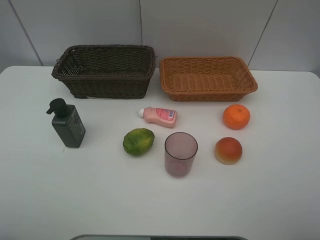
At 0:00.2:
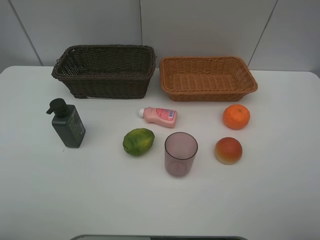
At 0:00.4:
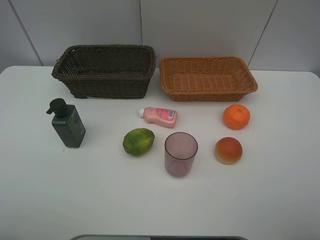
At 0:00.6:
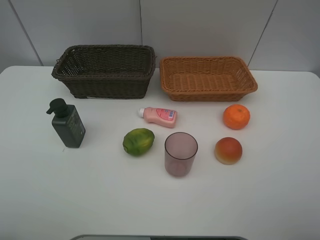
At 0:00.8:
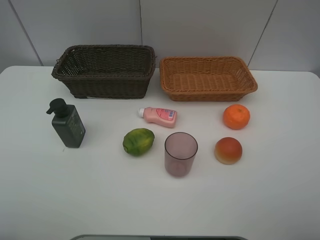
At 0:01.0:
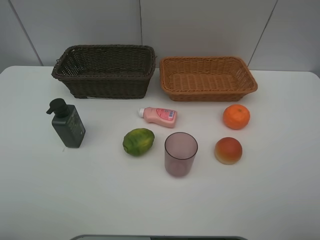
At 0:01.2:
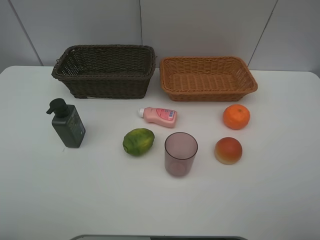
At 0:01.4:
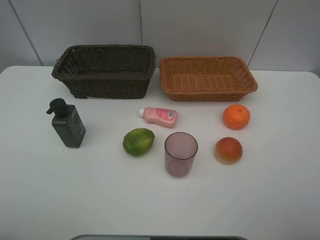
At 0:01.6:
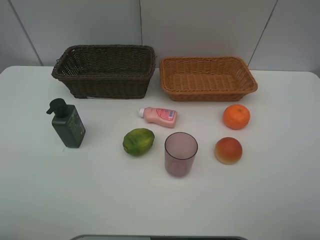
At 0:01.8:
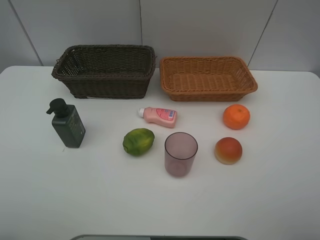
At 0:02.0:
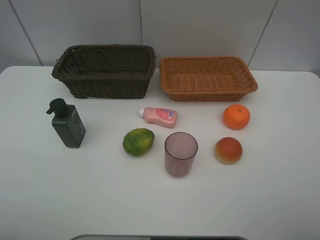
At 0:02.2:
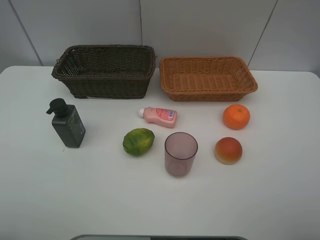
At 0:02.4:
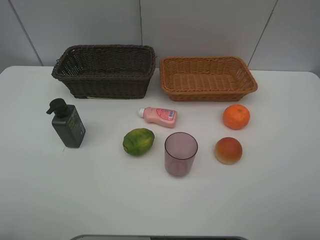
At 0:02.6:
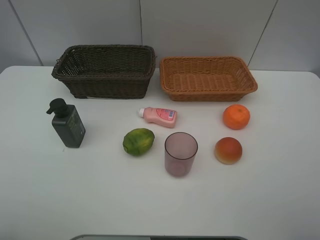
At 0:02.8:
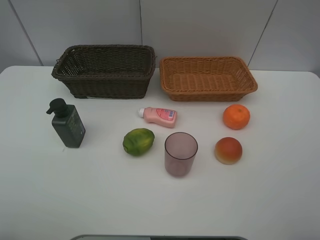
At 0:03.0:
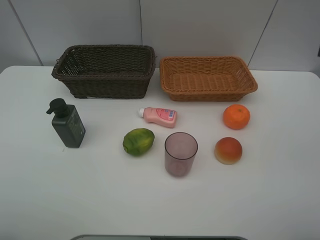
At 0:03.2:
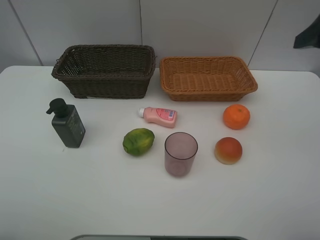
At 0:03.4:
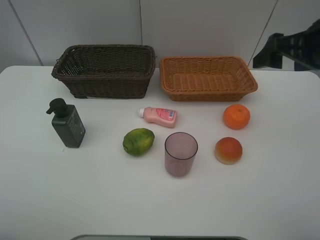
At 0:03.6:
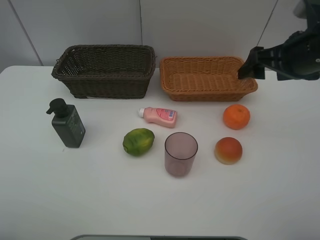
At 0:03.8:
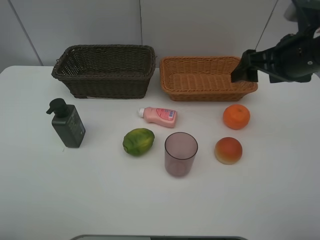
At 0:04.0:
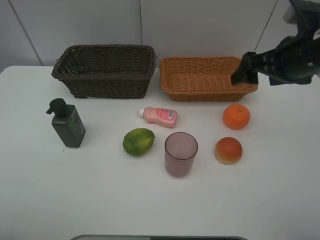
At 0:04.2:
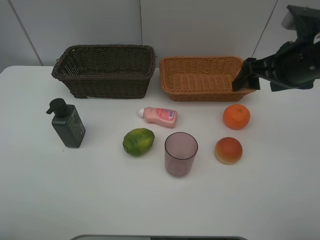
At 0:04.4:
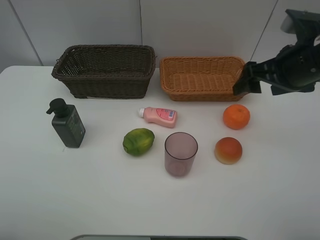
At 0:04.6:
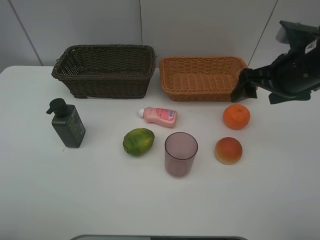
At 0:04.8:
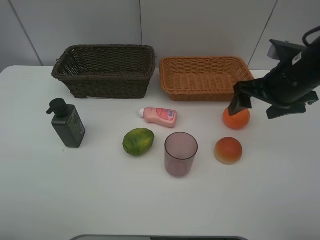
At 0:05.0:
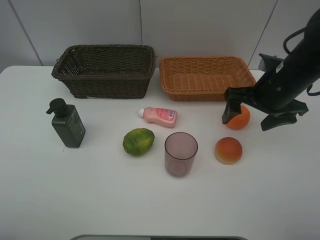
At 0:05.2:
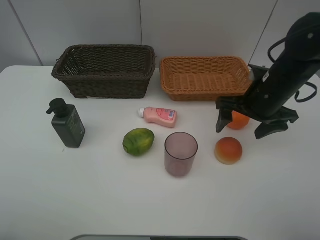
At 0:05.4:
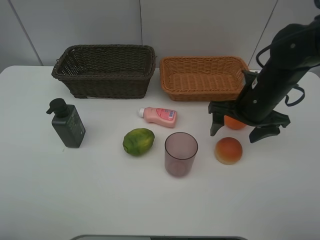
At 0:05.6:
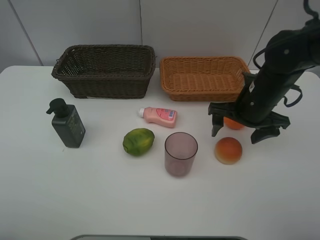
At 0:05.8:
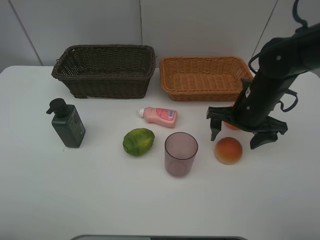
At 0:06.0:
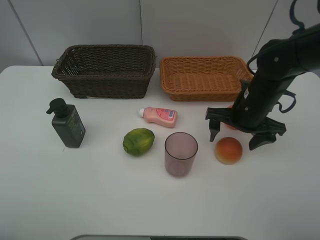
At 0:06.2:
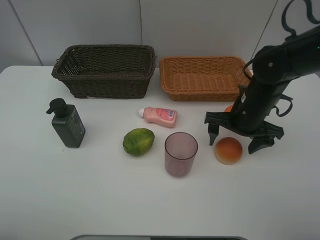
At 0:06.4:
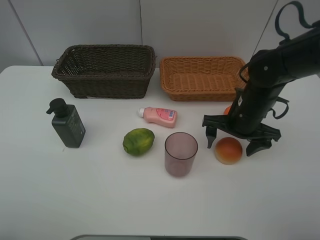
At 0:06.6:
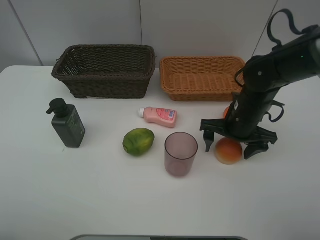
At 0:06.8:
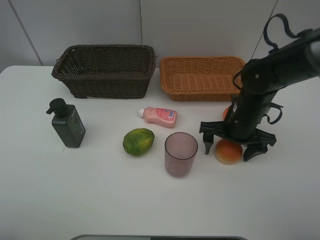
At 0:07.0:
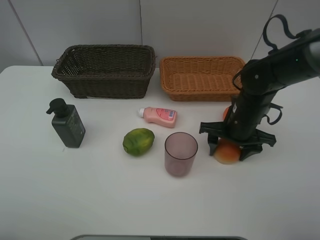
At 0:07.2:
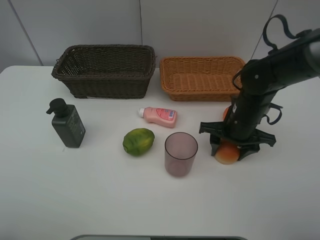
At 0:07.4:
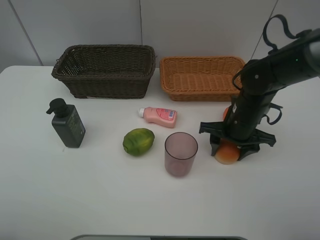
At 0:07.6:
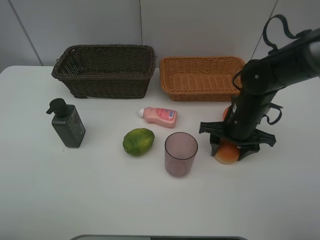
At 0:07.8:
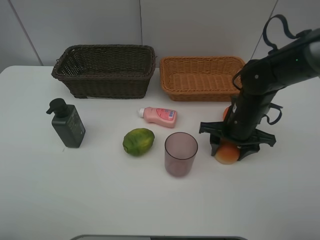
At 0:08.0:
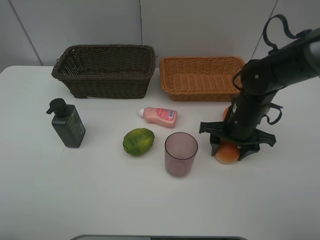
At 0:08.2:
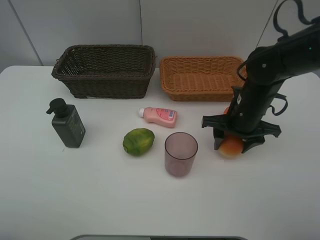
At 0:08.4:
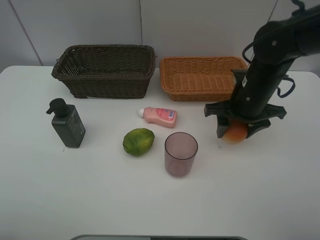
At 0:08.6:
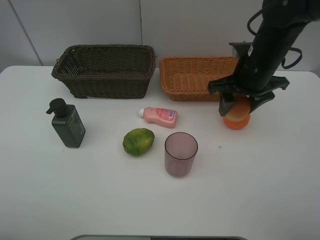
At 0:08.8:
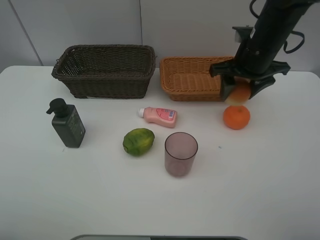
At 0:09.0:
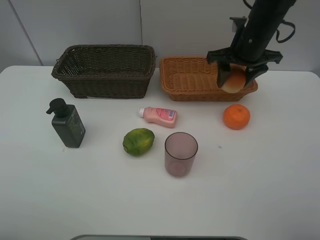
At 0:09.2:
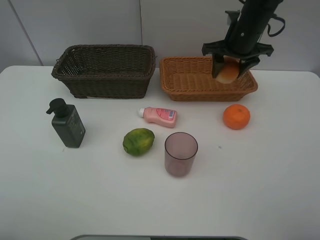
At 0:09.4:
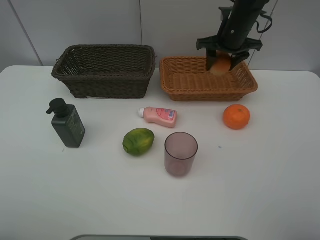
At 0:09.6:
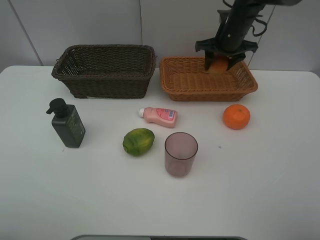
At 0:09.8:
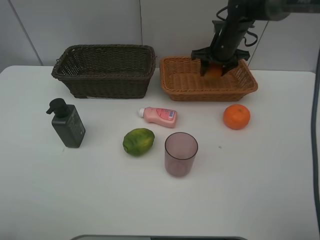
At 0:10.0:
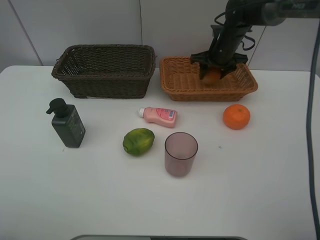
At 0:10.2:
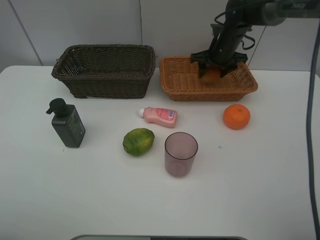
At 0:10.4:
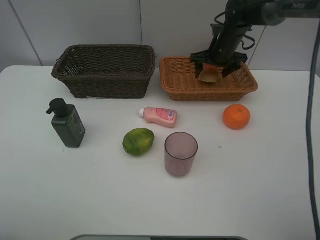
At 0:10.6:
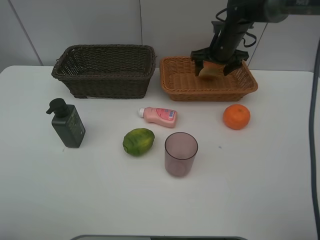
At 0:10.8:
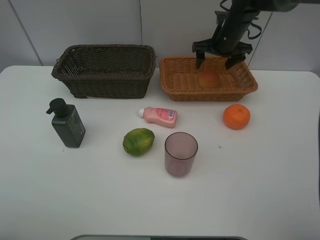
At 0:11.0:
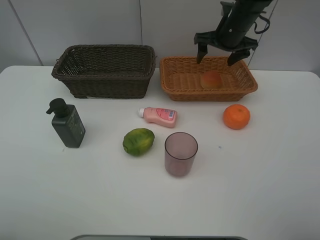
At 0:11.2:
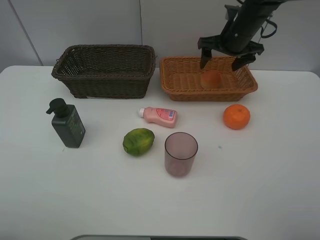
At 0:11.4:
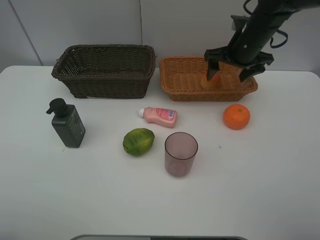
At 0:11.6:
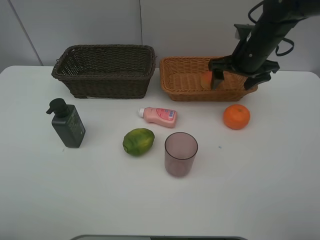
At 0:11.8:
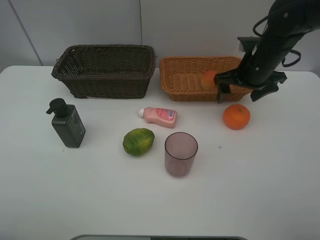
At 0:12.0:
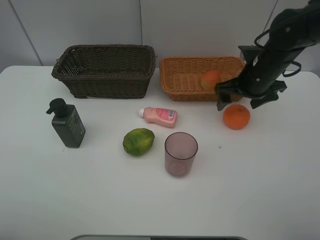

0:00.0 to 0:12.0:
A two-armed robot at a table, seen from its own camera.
Task of the whole recording: place multiple objects separately in different baskets.
0:00.0 to 0:01.6: Both grippers stay put.
0:03.0 to 0:04.4: The right gripper moves forward, downward and to the left, roughly 15 cm.
0:04.4 to 0:06.0: The right gripper heads downward, covering roughly 10 cm.
0:06.0 to 0:07.6: The right gripper closes.
0:07.6 to 0:09.0: The right gripper goes some 15 cm upward and forward.
0:09.0 to 0:10.4: The right gripper heads forward and downward, covering approximately 15 cm.
0:10.4 to 0:12.0: The right gripper heads backward, covering approximately 15 cm.

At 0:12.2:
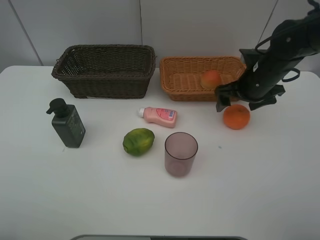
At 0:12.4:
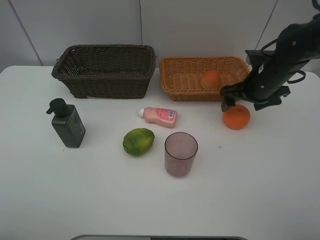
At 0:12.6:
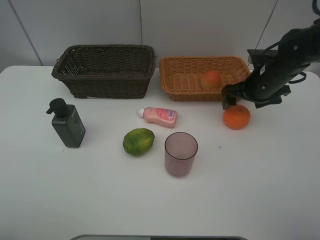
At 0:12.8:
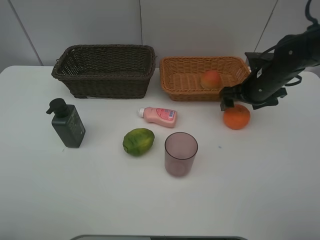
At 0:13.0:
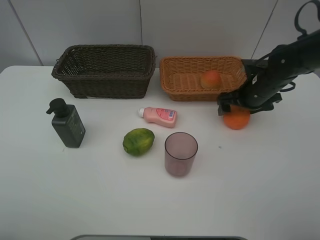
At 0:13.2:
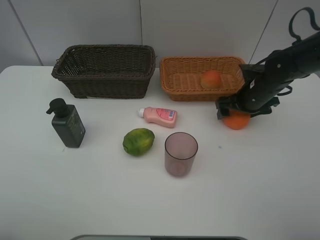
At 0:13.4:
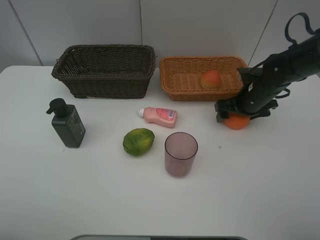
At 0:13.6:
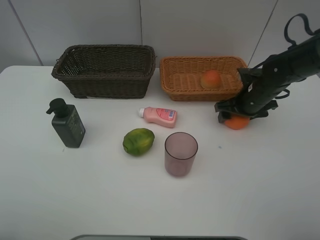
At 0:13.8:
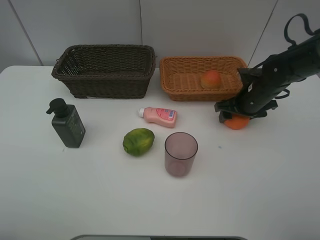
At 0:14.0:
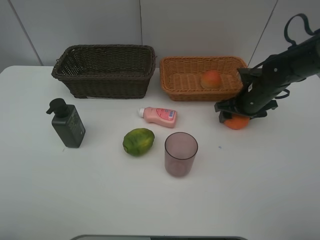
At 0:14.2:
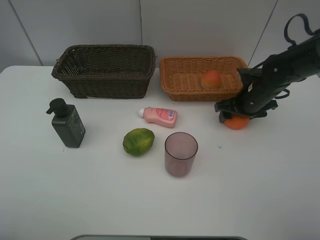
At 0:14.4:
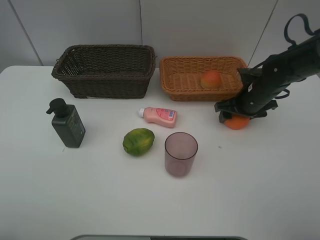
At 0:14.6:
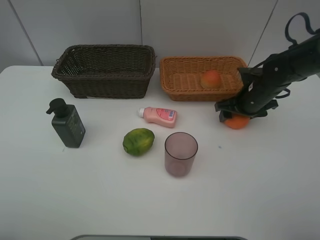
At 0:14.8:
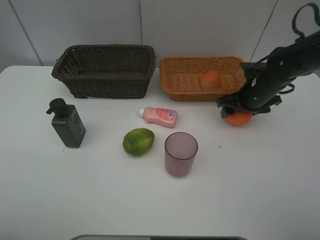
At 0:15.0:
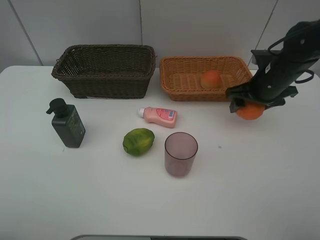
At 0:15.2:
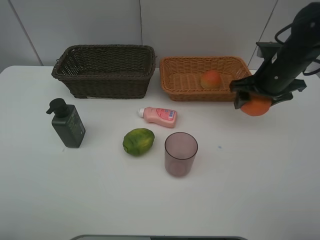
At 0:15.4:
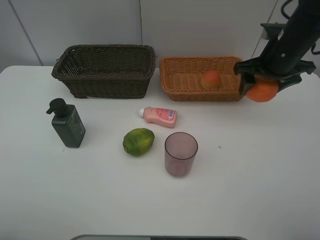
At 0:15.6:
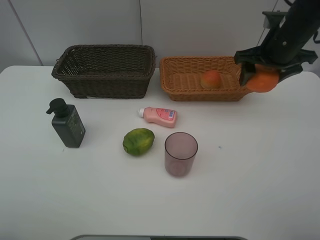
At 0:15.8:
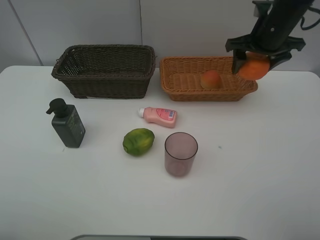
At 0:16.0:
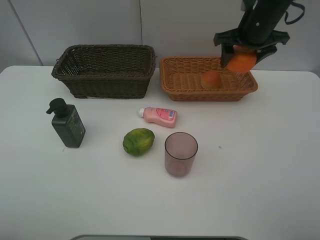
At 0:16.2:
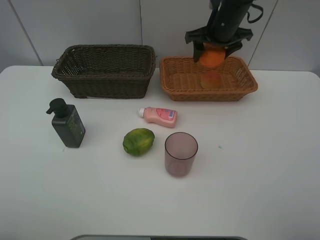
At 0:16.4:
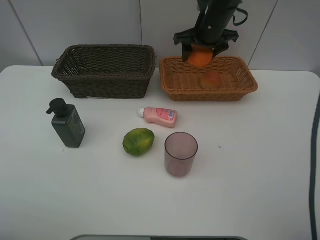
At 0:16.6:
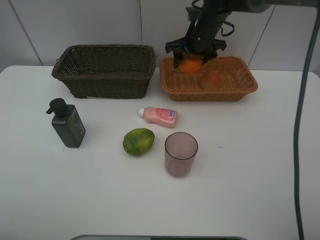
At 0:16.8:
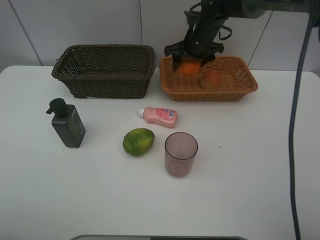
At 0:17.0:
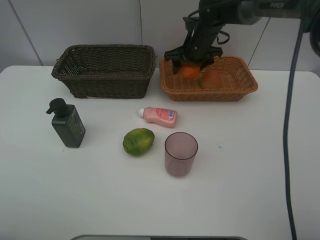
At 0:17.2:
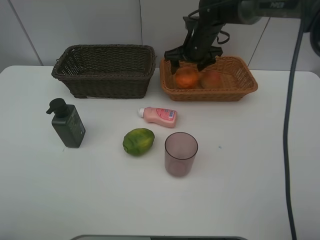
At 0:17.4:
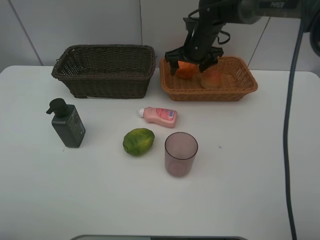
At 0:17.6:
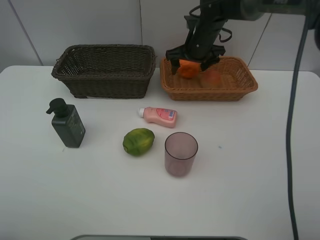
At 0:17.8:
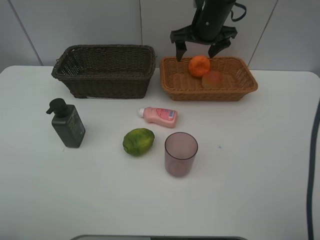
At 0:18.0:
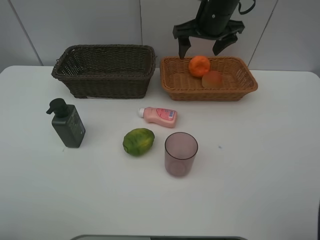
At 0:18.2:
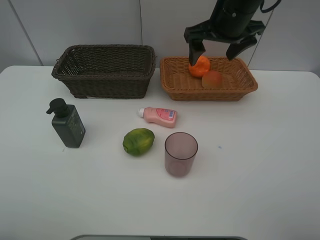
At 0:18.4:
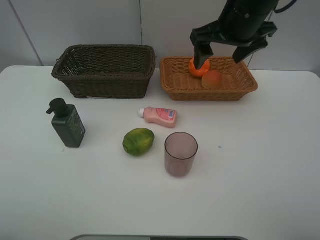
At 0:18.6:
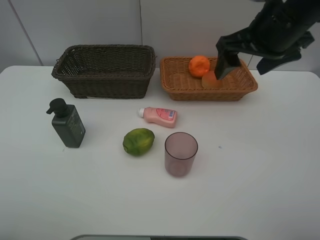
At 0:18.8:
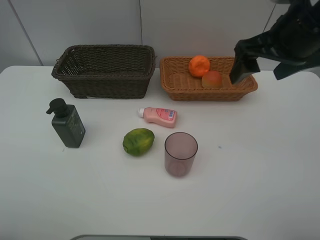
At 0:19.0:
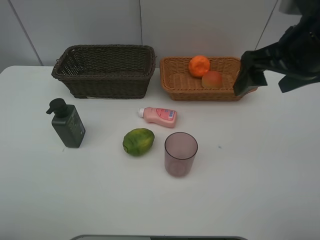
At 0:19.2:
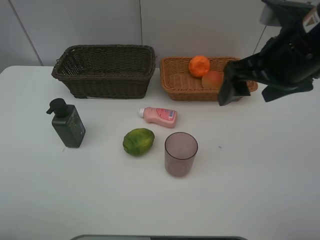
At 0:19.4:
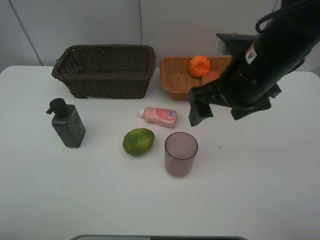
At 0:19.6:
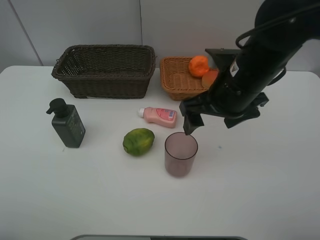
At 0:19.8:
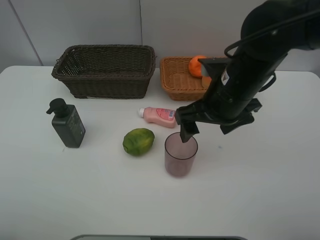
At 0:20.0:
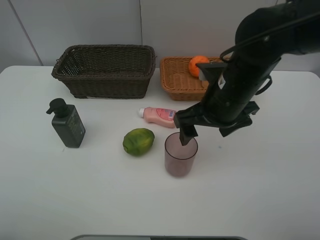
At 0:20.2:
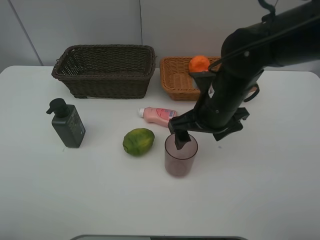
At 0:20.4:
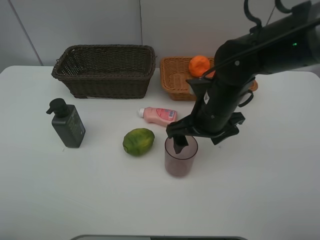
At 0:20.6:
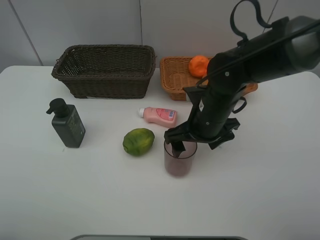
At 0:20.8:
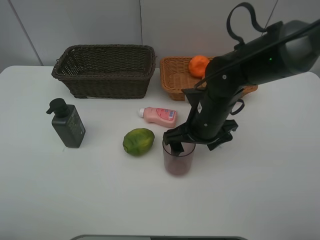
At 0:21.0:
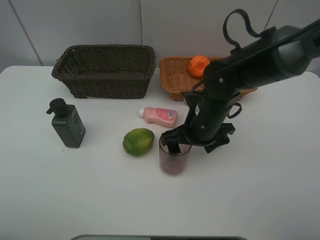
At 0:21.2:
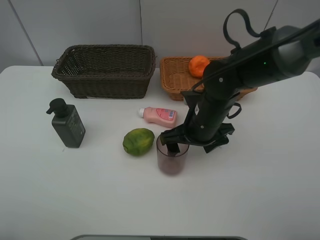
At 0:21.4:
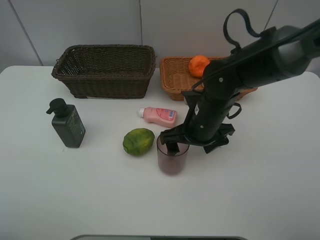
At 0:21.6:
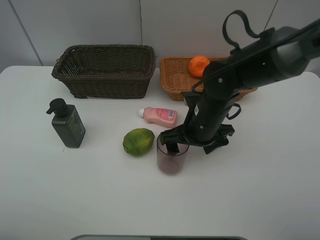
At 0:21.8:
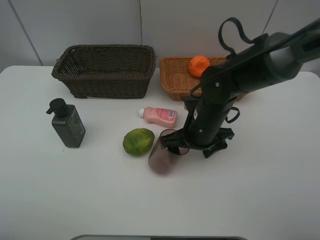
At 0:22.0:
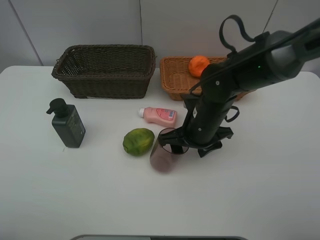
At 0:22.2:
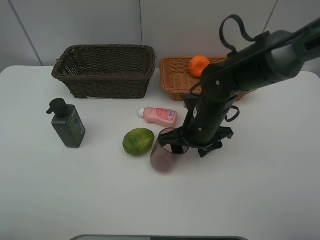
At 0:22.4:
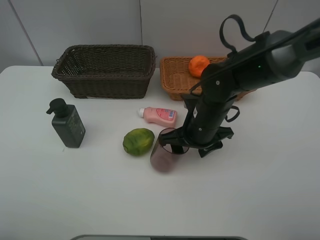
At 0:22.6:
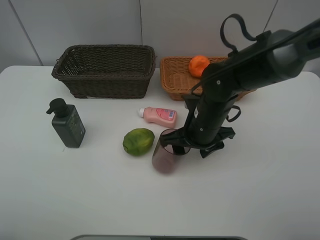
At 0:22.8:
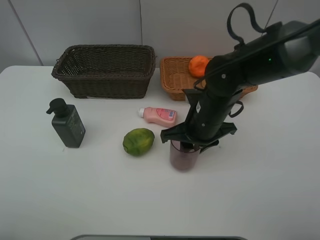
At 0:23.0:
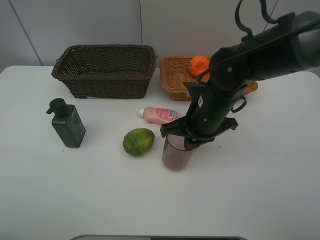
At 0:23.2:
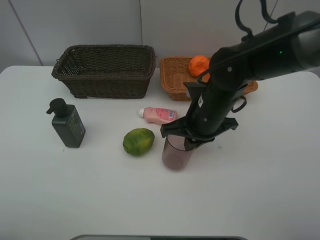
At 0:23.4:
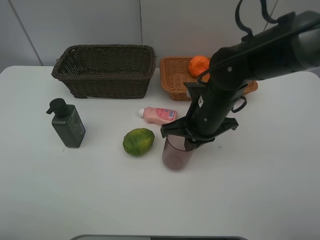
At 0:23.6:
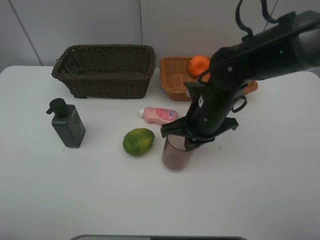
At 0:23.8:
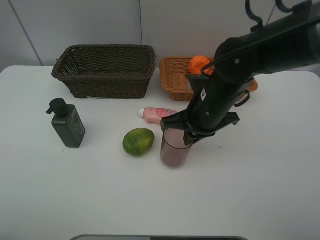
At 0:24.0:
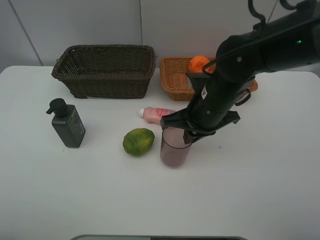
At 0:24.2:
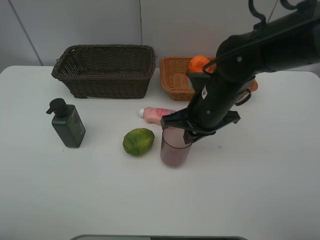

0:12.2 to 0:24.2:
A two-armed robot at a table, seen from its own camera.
Task of the whole recording: place multiple objects separately in different baskets.
0:12.2 to 0:13.8: The right gripper goes about 5 cm downward.
0:13.8 to 0:15.2: The right gripper heads upward, covering roughly 10 cm.
0:15.2 to 0:16.6: The right gripper goes some 20 cm forward and to the left.
0:16.6 to 0:18.2: The right gripper travels backward and upward by some 15 cm.
0:18.2 to 0:19.8: The right gripper moves backward and downward, about 15 cm.
0:19.8 to 0:21.2: The right gripper moves downward, roughly 10 cm.
0:21.2 to 0:22.6: Neither gripper changes place.
0:22.6 to 0:24.2: The right gripper closes up.
